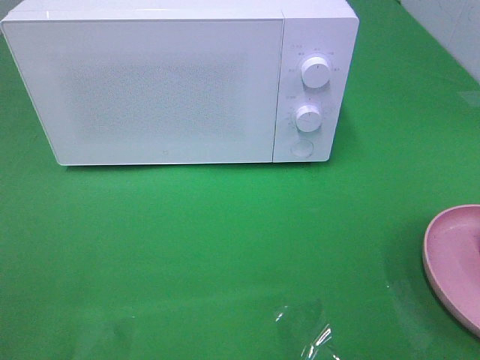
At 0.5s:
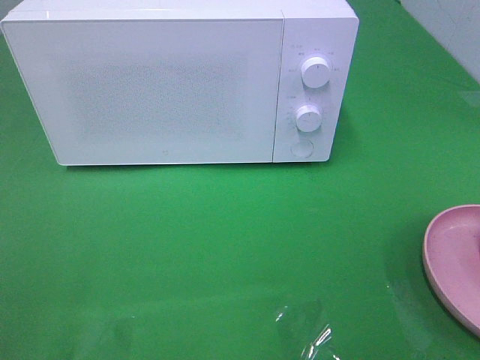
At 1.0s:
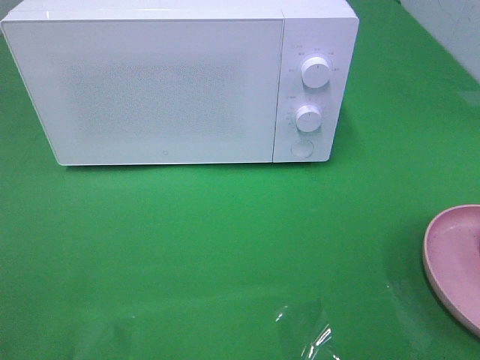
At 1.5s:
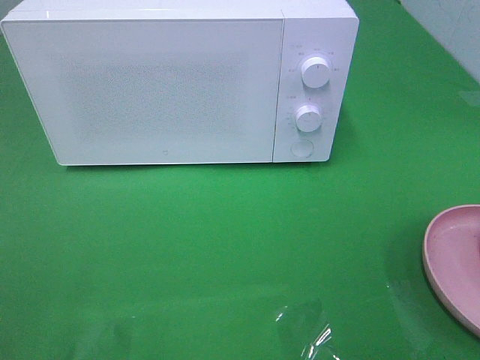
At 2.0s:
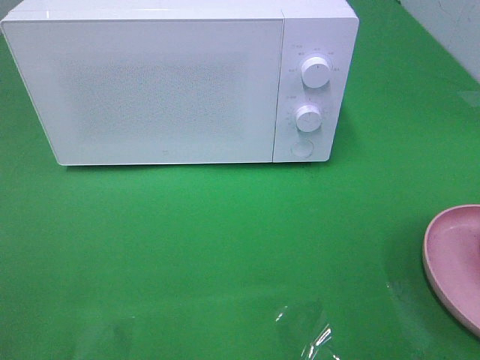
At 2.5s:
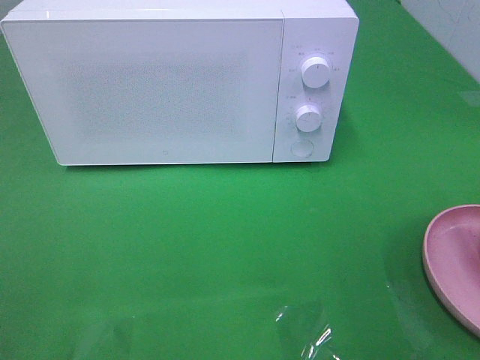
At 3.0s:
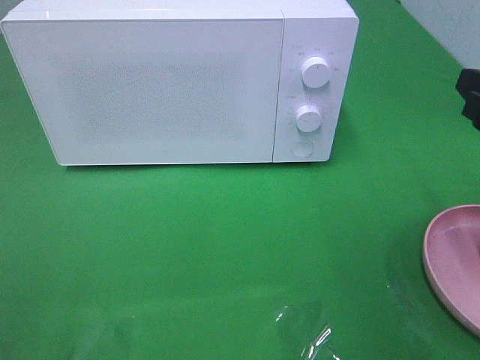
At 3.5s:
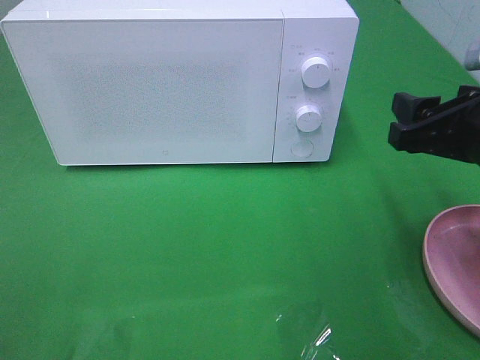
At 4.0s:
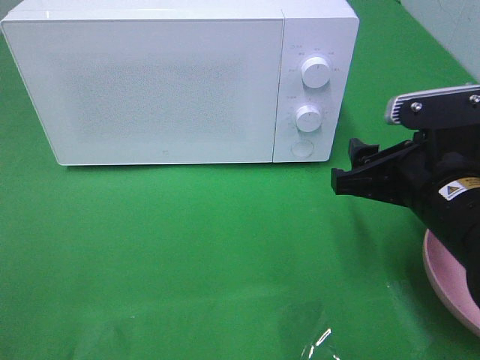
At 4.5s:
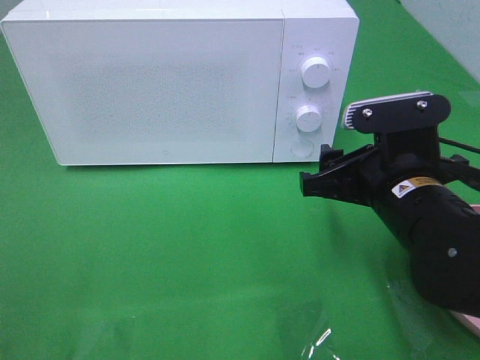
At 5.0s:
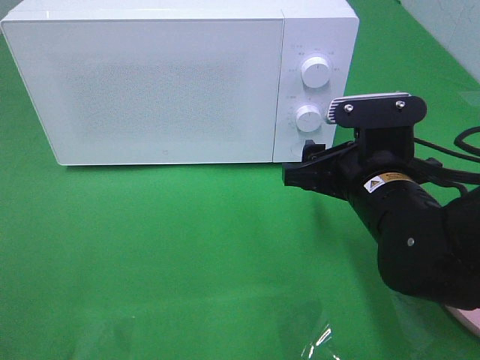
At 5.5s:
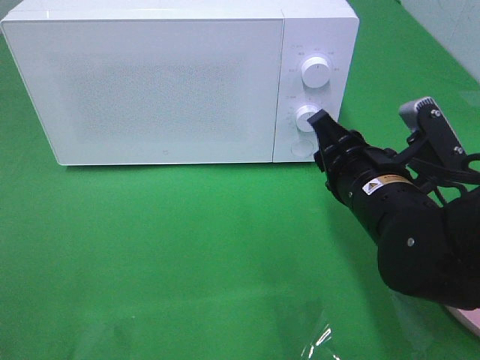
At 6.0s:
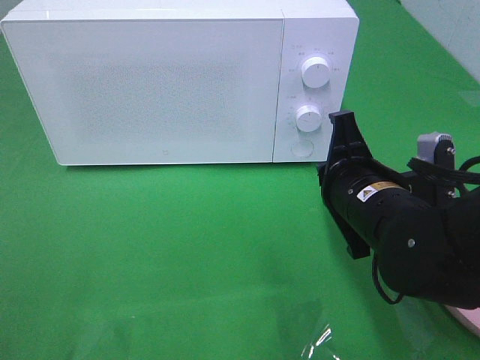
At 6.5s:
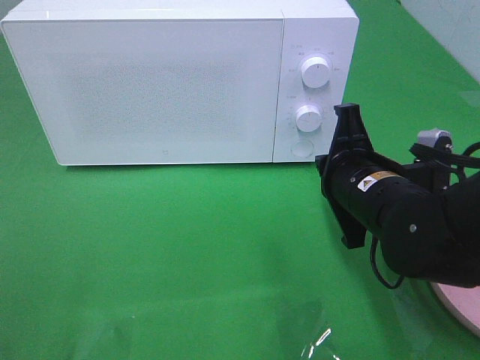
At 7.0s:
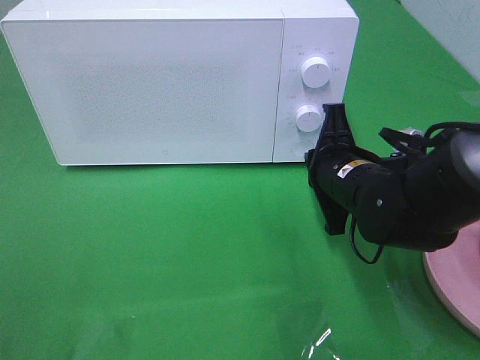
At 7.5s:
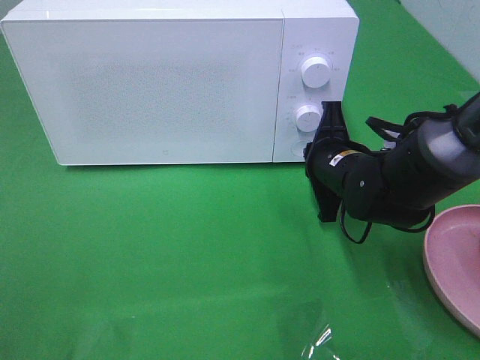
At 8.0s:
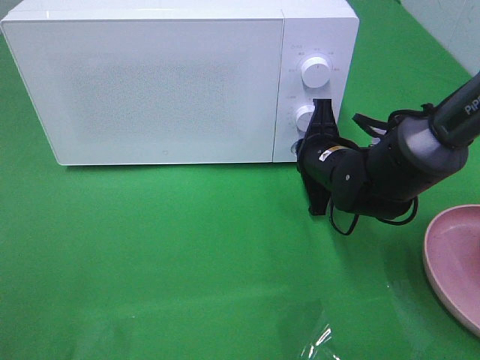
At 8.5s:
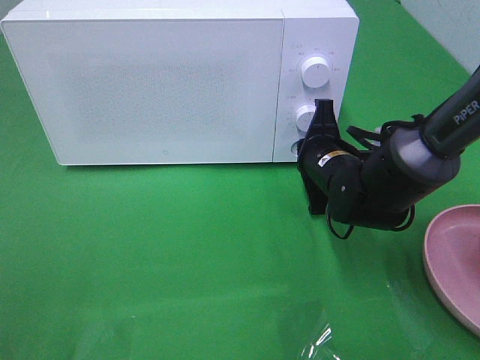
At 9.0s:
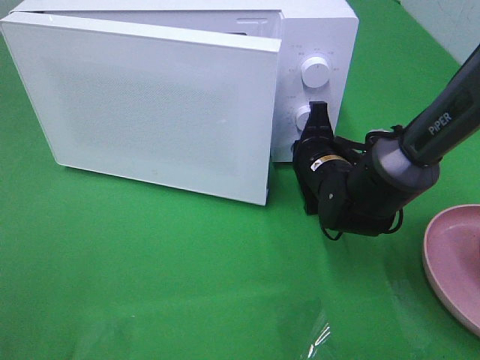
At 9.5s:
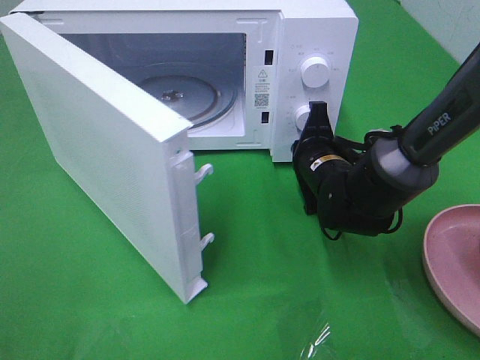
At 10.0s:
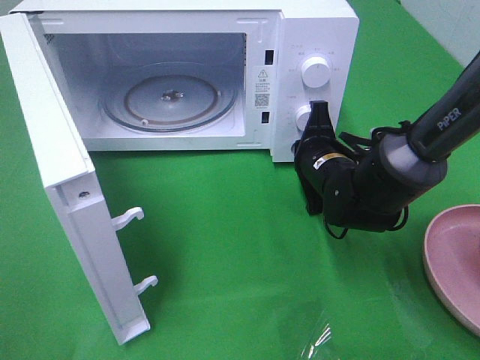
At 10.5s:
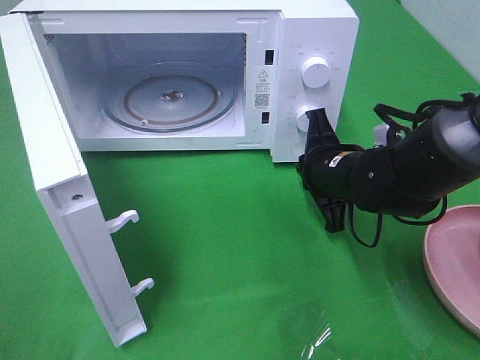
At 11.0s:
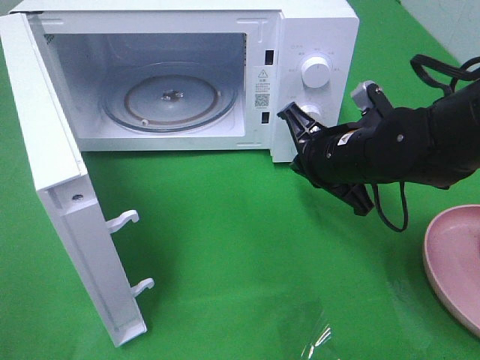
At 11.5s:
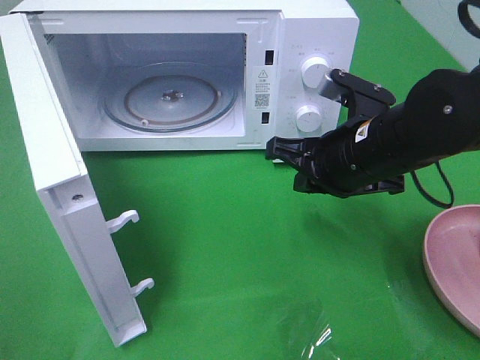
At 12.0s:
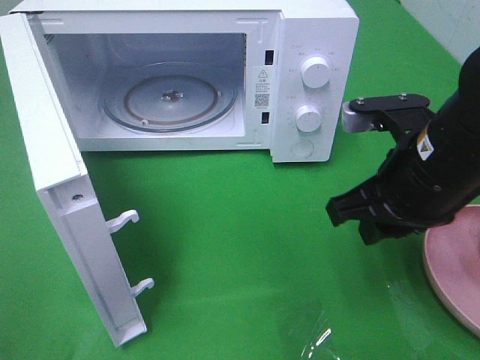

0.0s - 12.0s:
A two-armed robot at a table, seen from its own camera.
Task of the whole recording: Heat the burger.
Step, 0.0s - 10.5s: Right hand: press the switch.
2.0s - 4.0s: The right gripper travels to the left, downward and forward by approximately 20 cm.
4.0s - 6.0s: The right gripper changes place by roughly 5 cm, and closes its fingers.
6.0s - 8.0s: The right gripper travels forward and downward by some 15 cm.
10.0s - 12.0s: The right gripper is displaced upward and backward by some 15 cm, and opens.

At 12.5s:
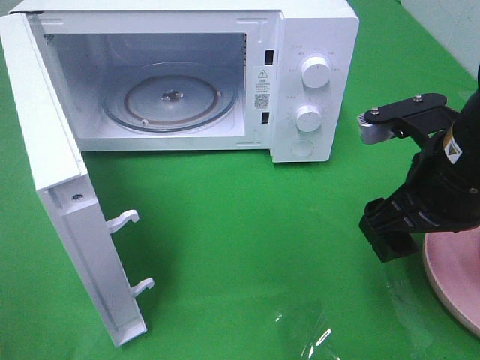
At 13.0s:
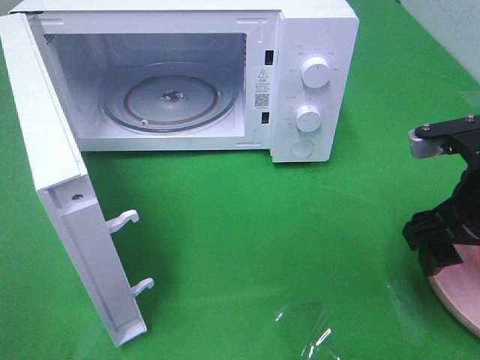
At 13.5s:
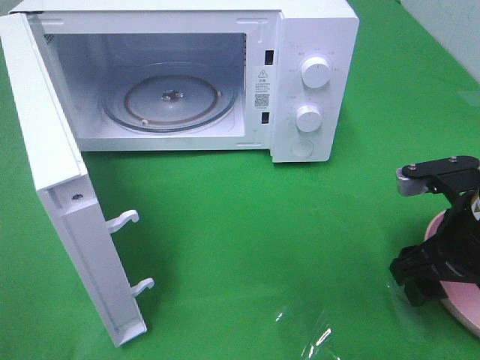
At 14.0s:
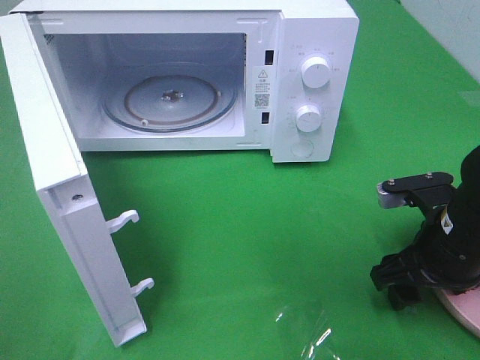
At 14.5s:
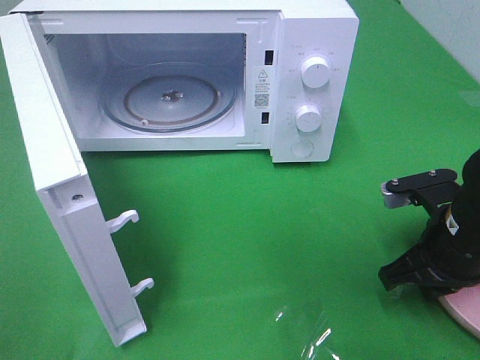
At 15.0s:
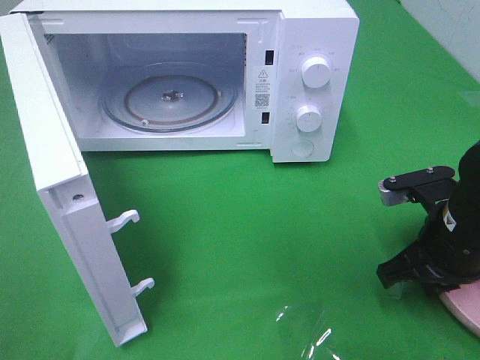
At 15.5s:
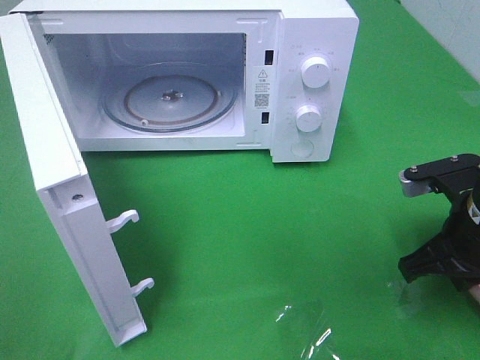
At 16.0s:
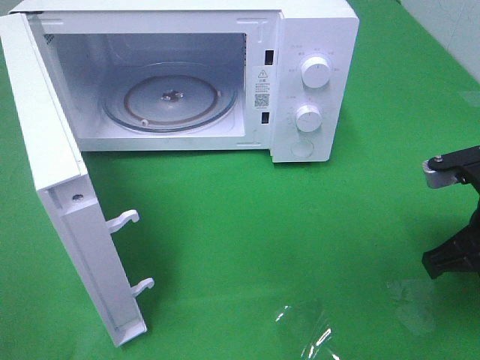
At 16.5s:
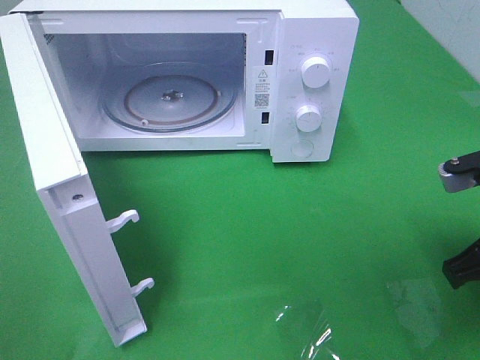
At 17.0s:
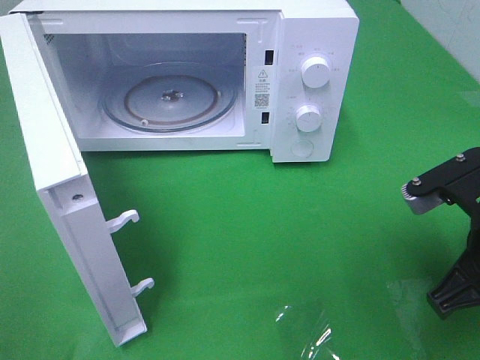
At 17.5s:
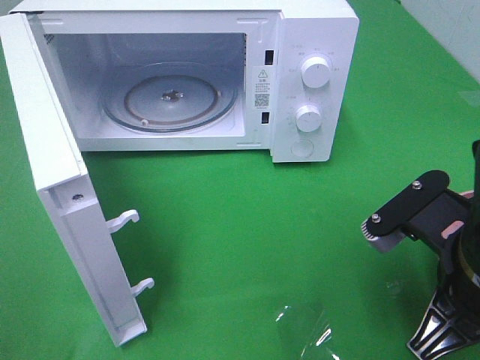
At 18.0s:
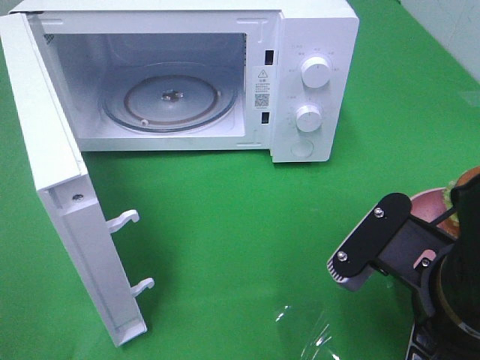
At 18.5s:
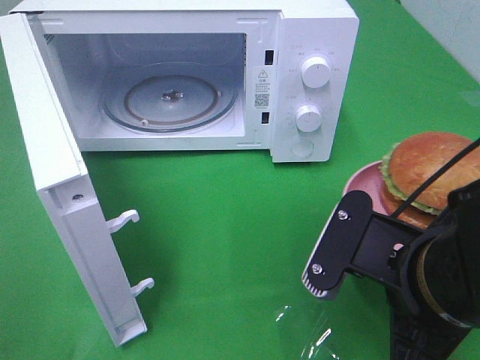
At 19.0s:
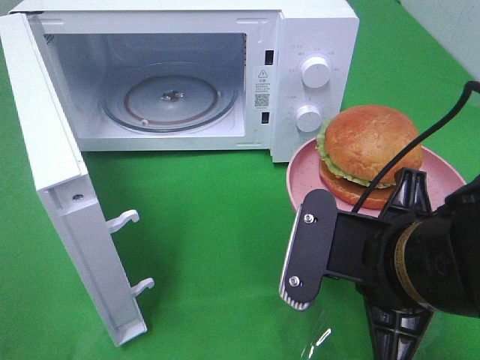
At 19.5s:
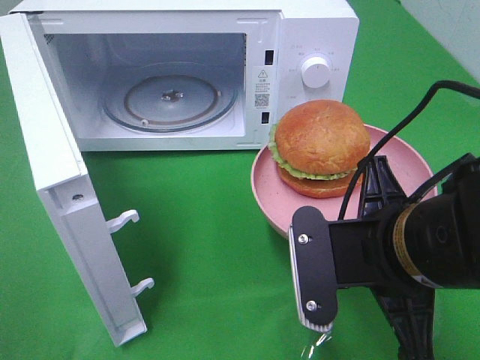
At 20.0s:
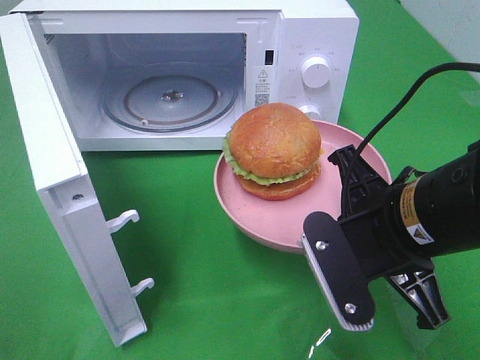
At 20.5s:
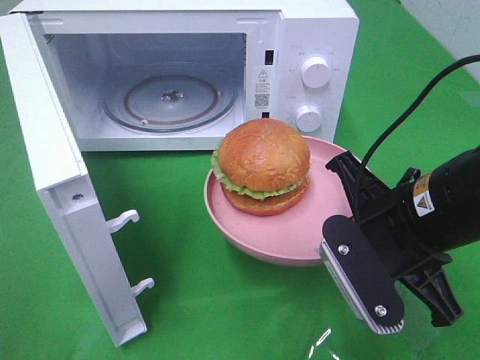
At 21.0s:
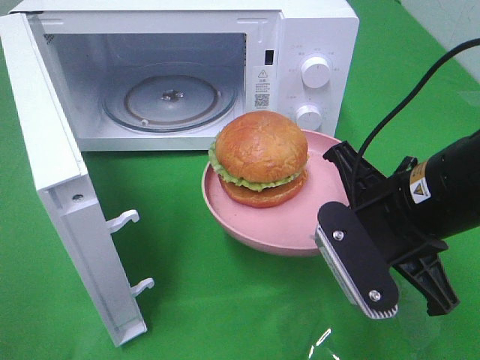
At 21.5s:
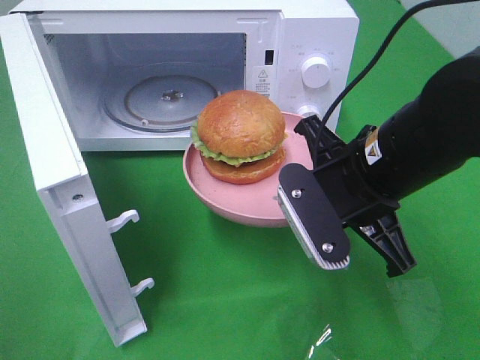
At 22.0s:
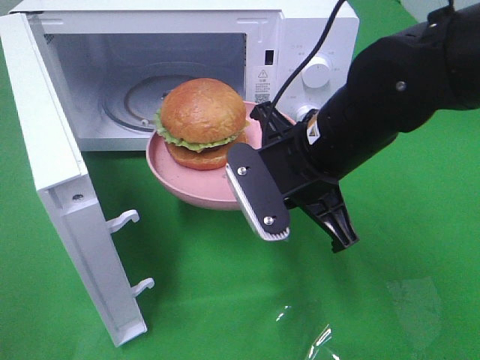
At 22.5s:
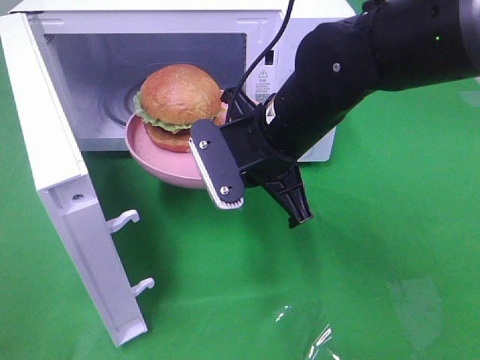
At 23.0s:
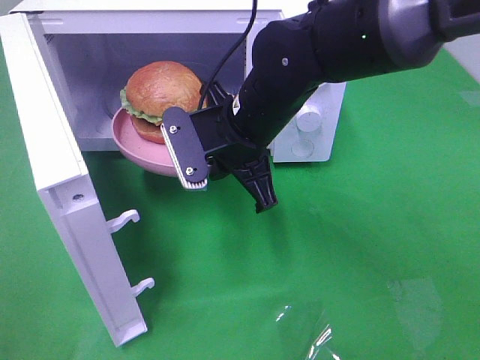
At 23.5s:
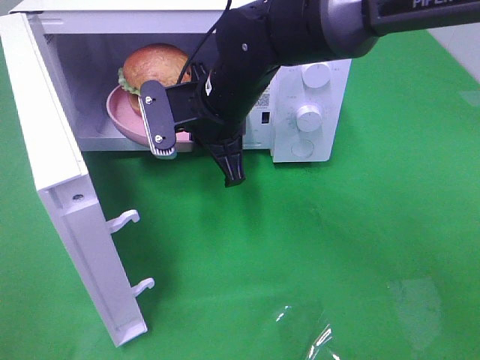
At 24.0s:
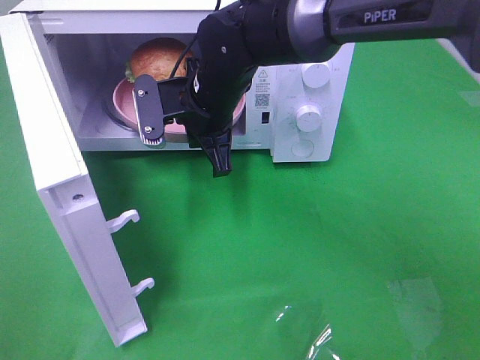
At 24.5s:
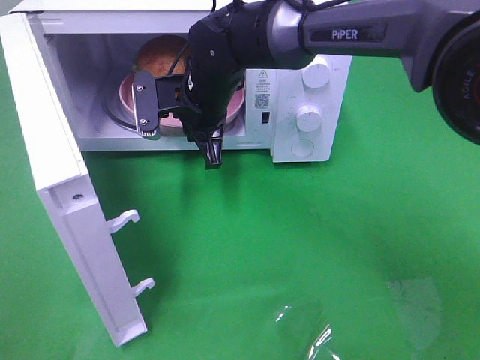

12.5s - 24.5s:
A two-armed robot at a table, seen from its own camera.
Task of the whole recording: Heat the burger.
Step, 12.5s - 14.5s: Right hand: grab the plate with the hamburger.
12.5s - 14.5s: The right gripper goes approximately 10 cm downward, and closes.
14.5s - 16.5s: The right gripper moves upward, about 5 cm.
16.5s - 18.5s: The right gripper travels to the left and backward by about 15 cm.
18.5s - 20.5s: The right gripper shifts about 5 cm forward.
20.5s - 22.5s: The right gripper travels to the left and forward by roughly 15 cm.
22.5s - 24.5s: The right gripper travels forward and to the left by about 15 cm.

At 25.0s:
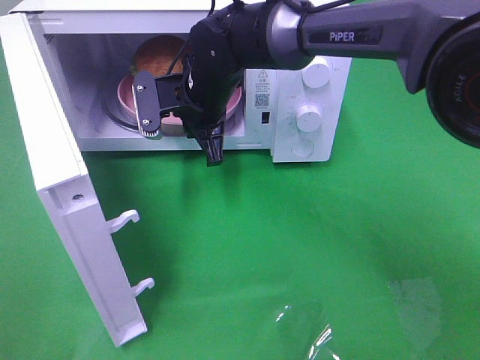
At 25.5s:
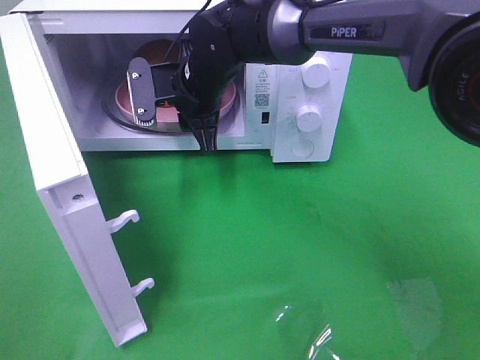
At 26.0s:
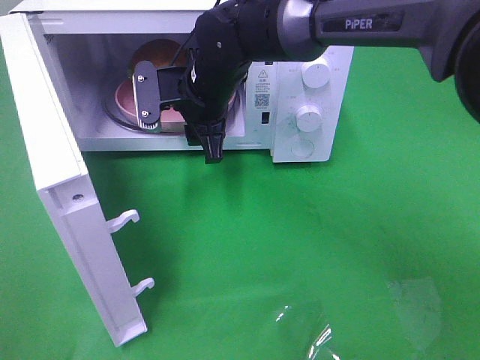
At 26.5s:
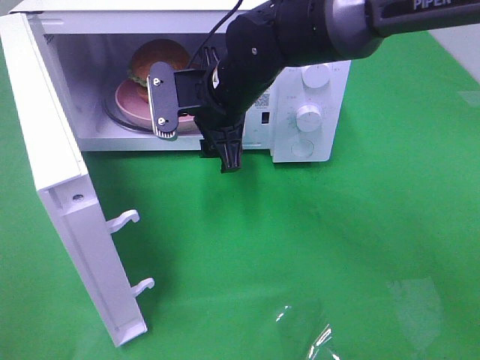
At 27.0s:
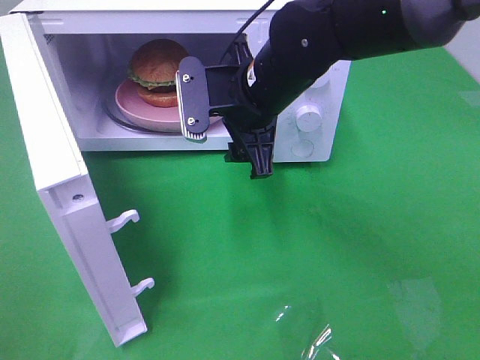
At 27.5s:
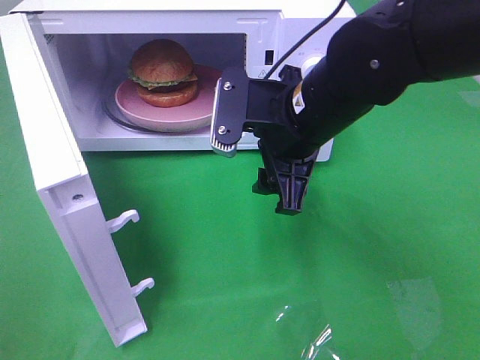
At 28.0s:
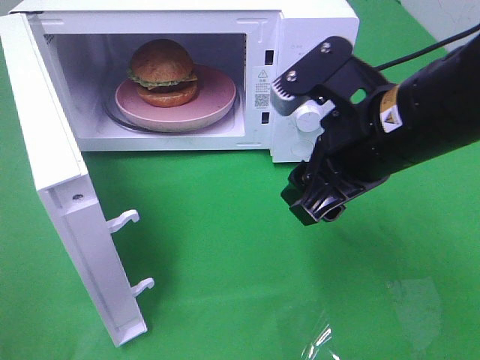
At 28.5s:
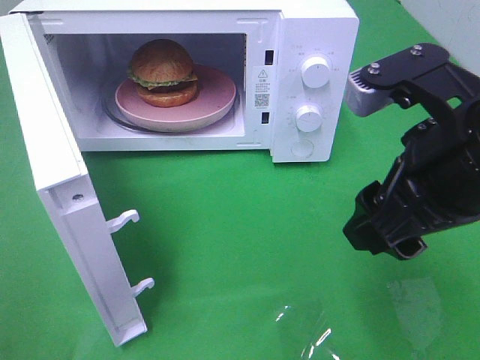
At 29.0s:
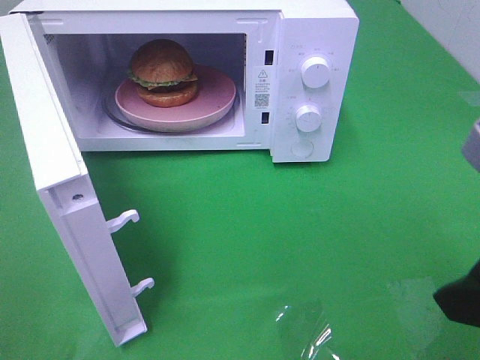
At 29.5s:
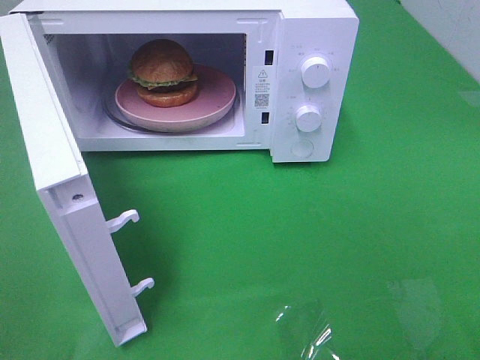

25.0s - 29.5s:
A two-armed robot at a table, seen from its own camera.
Task of the whole recording: Heat the burger.
25.0s - 27.0s: The right gripper goes about 10 cm backward and to the right, and opens its fingers.
27.0s - 29.5s: The right gripper goes approximately 35 cm backward and to the right.
